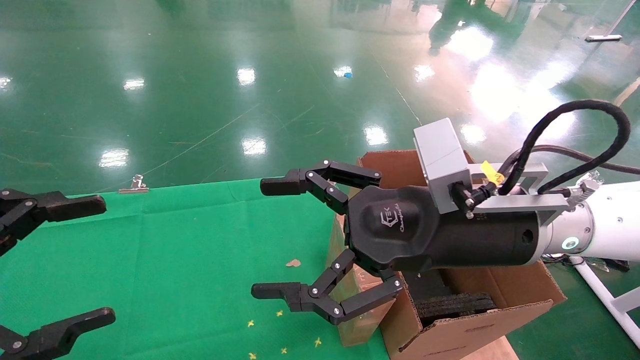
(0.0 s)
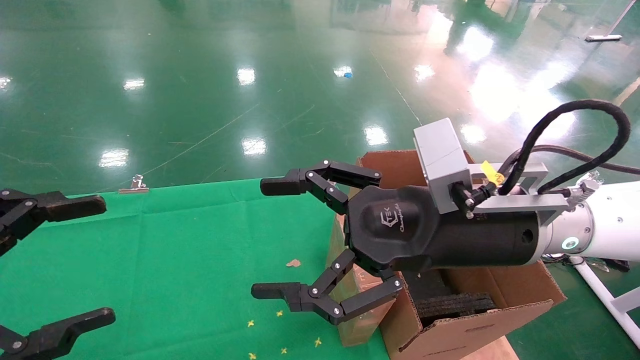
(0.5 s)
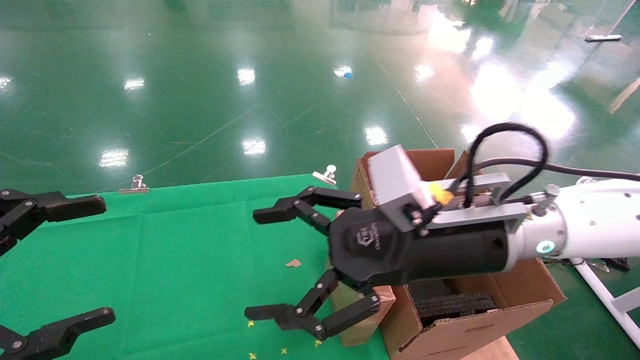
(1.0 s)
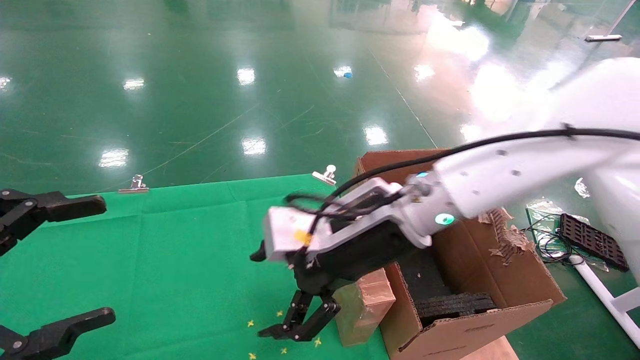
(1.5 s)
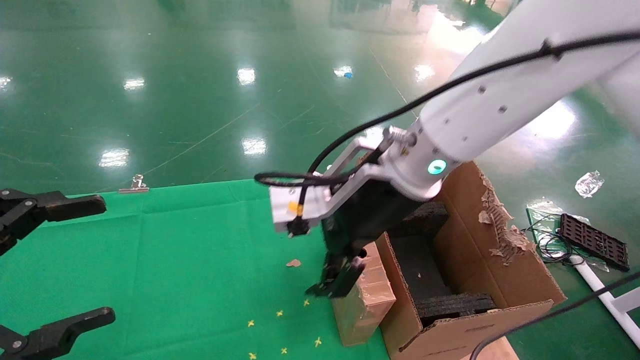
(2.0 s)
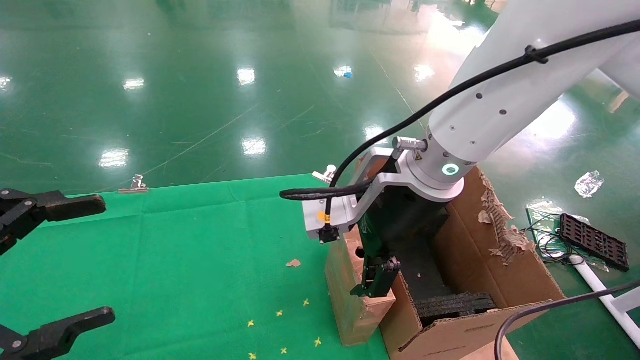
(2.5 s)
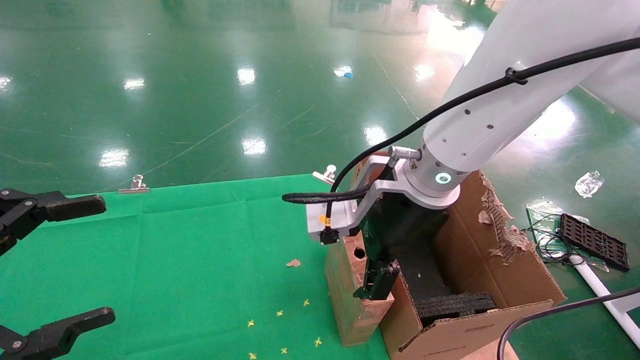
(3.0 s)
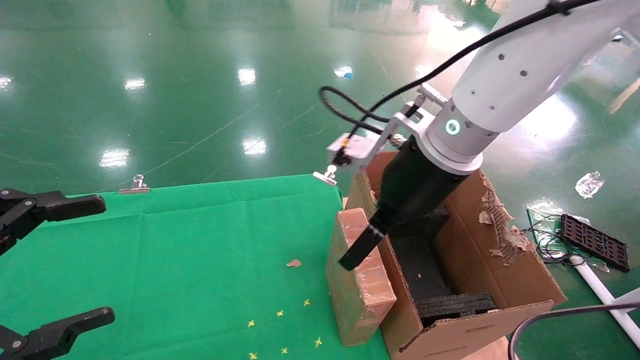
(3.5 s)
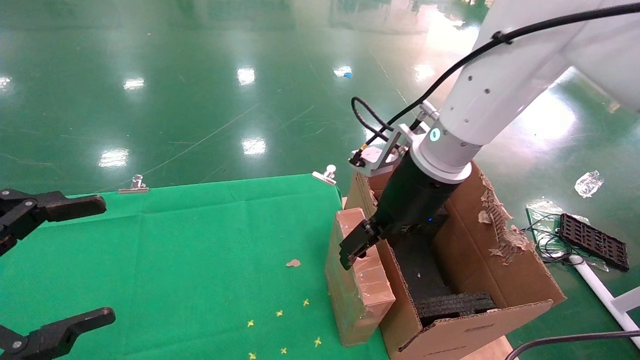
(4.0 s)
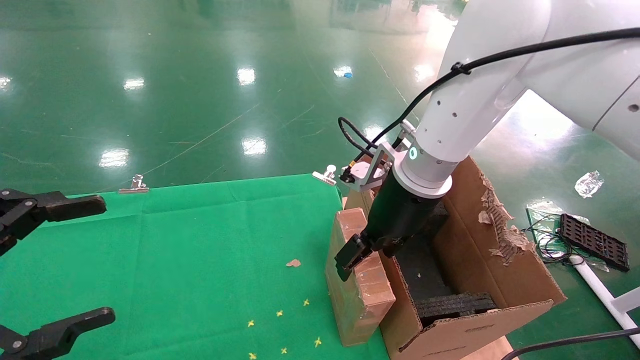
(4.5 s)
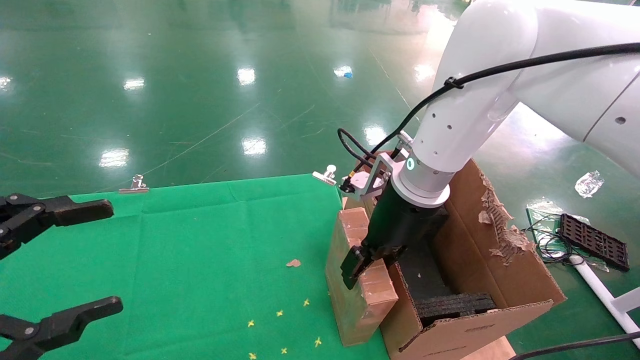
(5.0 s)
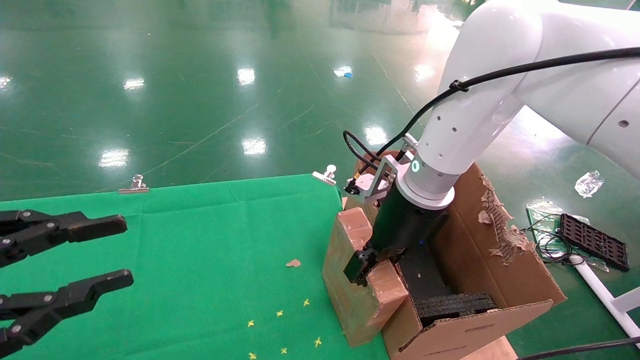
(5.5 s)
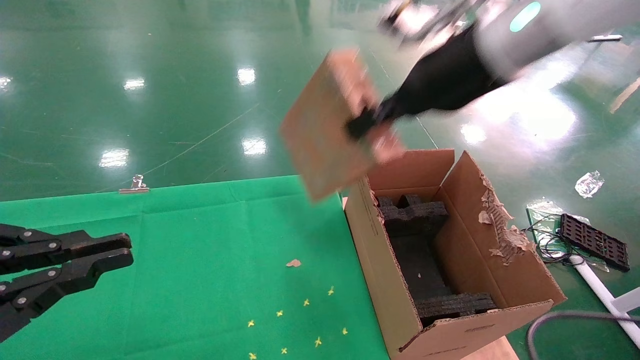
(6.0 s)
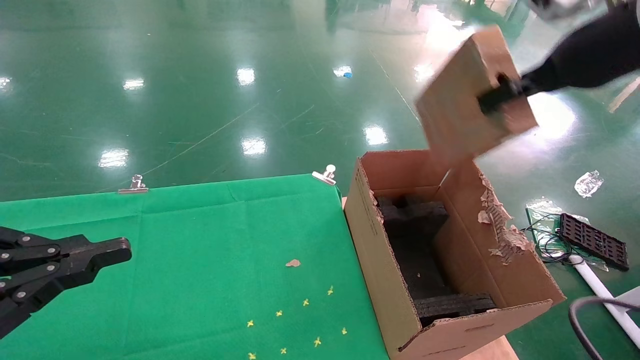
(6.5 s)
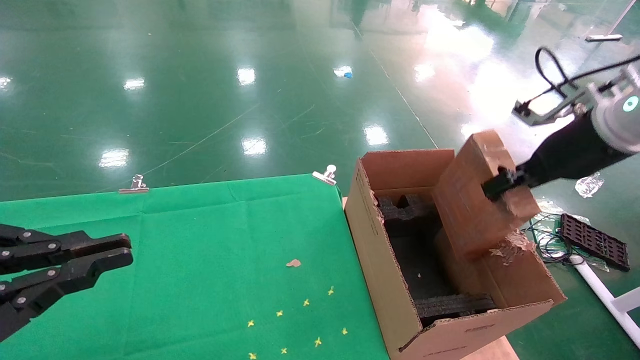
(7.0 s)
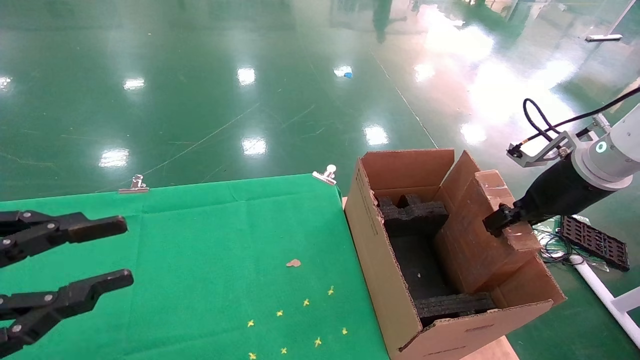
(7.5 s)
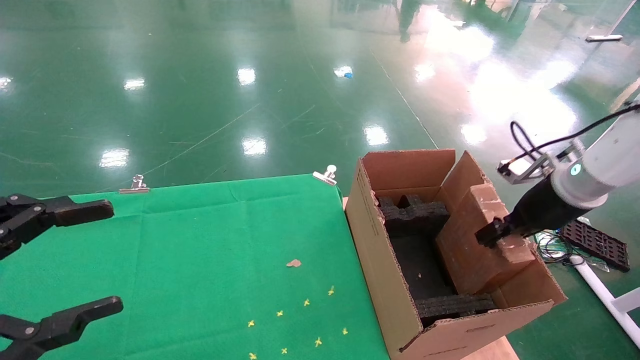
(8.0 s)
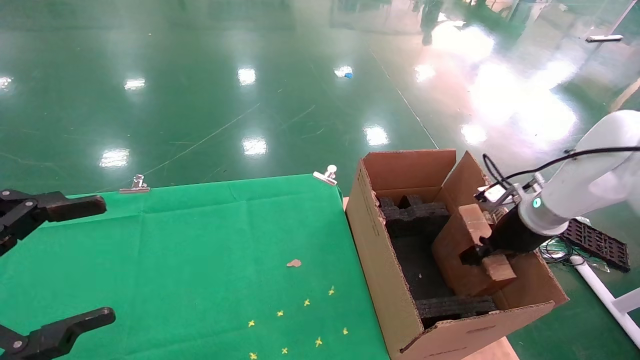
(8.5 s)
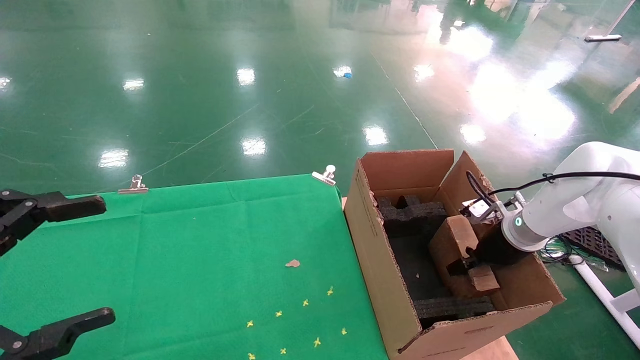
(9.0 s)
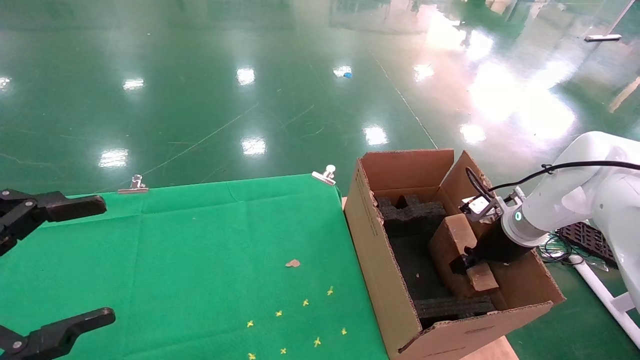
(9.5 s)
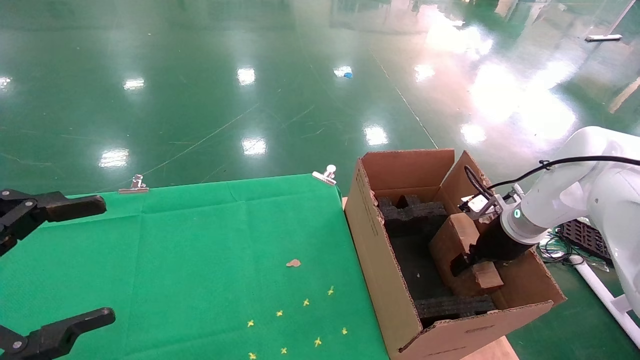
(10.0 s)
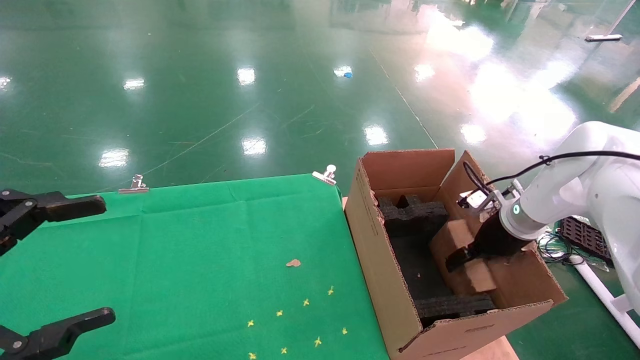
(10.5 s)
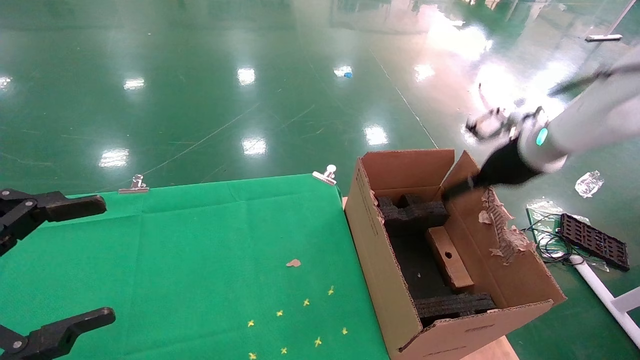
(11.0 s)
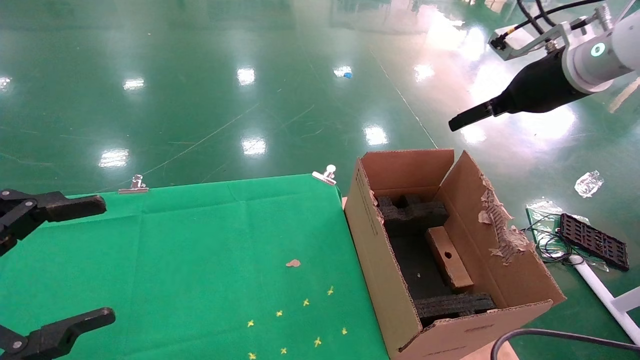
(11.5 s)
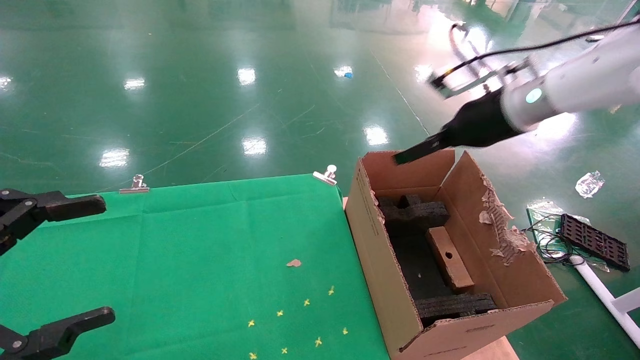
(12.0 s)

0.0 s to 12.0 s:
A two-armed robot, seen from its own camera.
Task of the whole recording: using a robotic arm to pick up a cardboard box and palace it the carton.
Step, 1.0 to 5.0 s: Pick up the mouse and the power cord paper box.
Step, 5.5 to 11.0 s: Place the mouse and the power cord paper box into the container.
0.0 to 2.0 s: The right gripper travels to the left and forward by some 10 cm.
2.0 to 4.0 s: The right gripper shifts some 5 cm to the right.
4.0 to 6.0 s: The right gripper heads upward and to the right, covering approximately 15 cm, and closes its fingers, while the left gripper closes up.
6.0 to 8.0 s: The right gripper goes about 25 cm to the right and downward; the left gripper opens its fingers.
8.0 to 10.0 s: The right gripper moves downward, roughly 10 cm, and opens its fingers.
10.0 to 12.0 s: The right gripper is displaced upward and to the left by roughly 20 cm, and opens up.

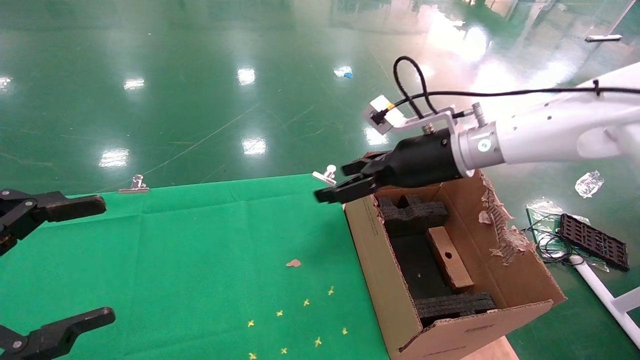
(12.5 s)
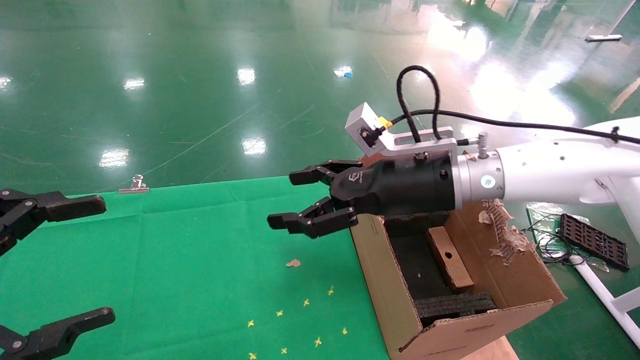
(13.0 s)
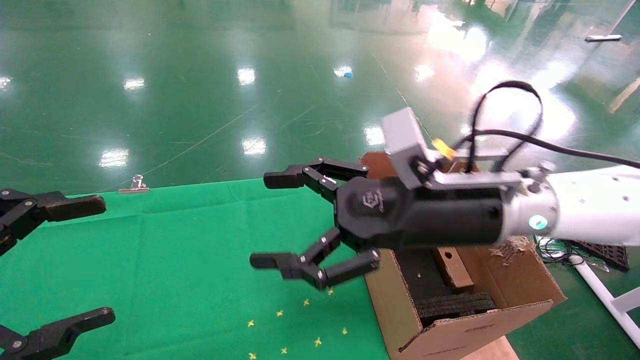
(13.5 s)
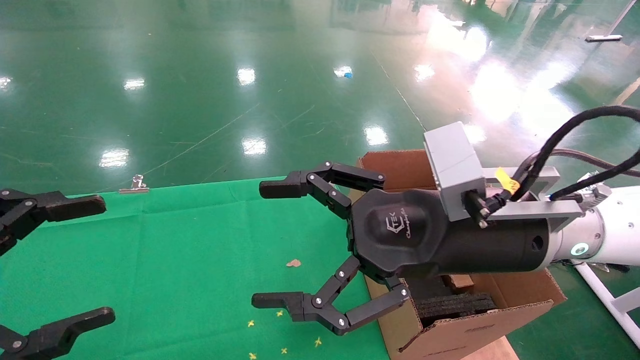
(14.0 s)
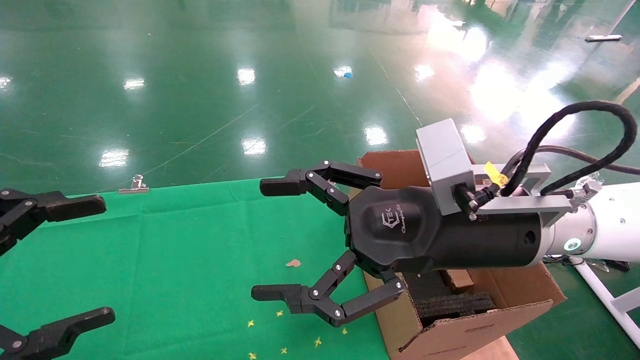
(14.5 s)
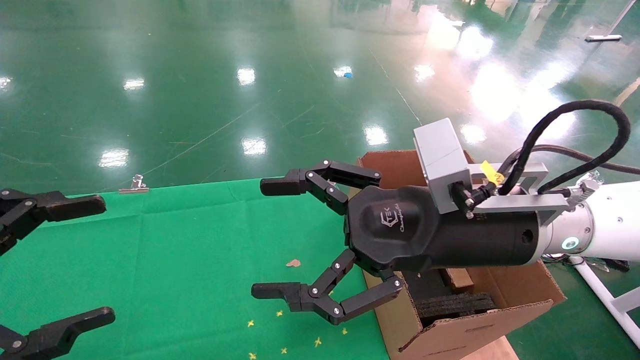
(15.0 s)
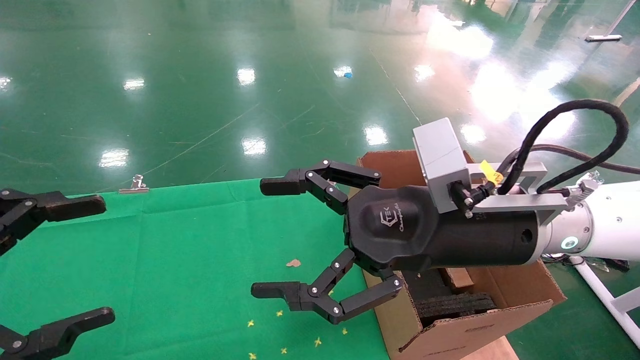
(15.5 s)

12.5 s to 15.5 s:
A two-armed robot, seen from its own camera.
Task of the whole recording: using a robotic arm to pick up a cardboard box and palace it the carton.
12.5 to 14.0 s: The right gripper heads backward, covering approximately 15 cm.
14.0 to 15.5 s: Neither gripper changes place.
